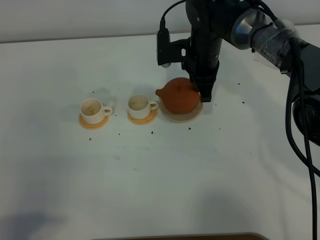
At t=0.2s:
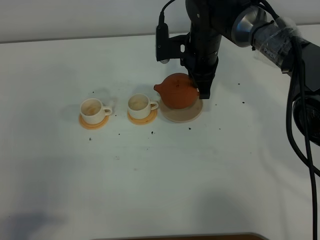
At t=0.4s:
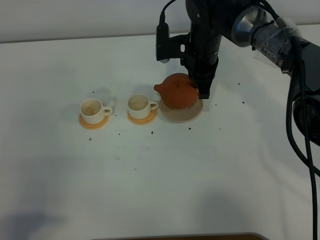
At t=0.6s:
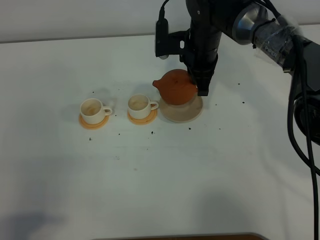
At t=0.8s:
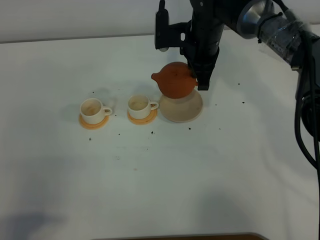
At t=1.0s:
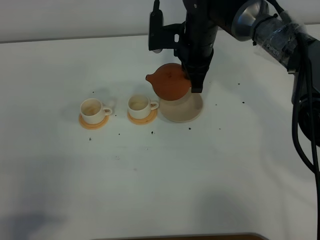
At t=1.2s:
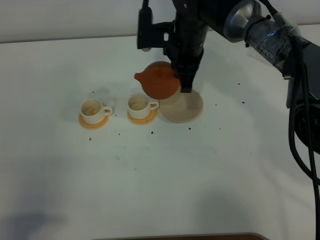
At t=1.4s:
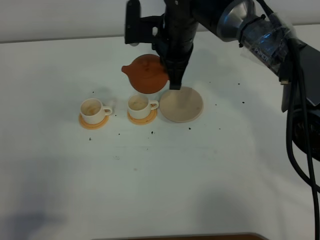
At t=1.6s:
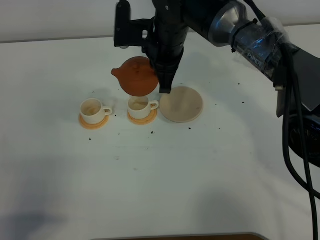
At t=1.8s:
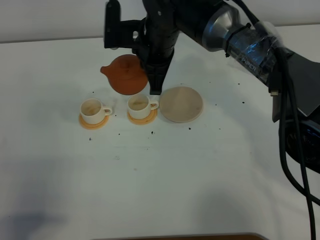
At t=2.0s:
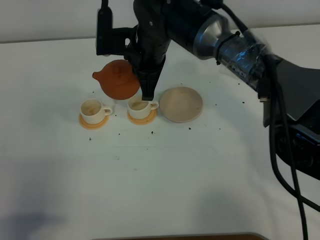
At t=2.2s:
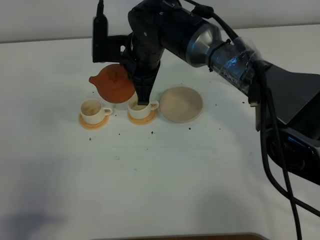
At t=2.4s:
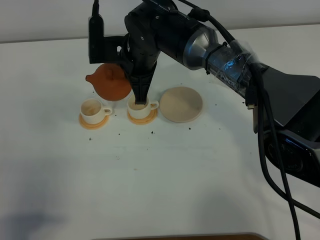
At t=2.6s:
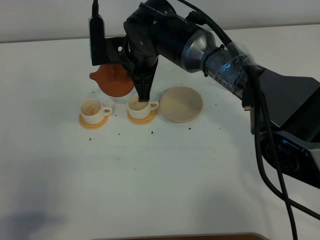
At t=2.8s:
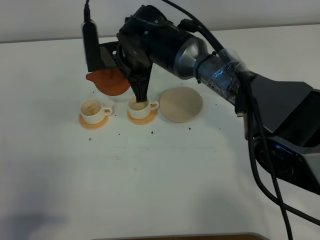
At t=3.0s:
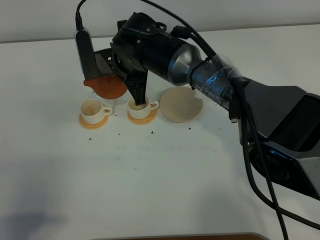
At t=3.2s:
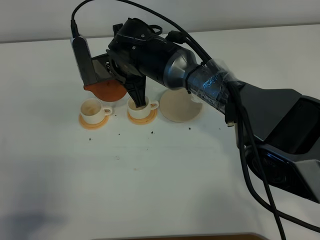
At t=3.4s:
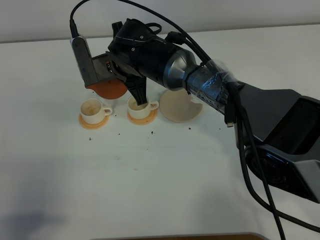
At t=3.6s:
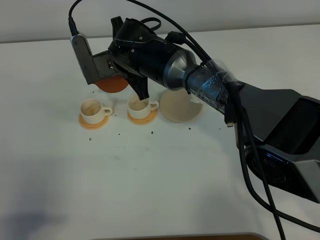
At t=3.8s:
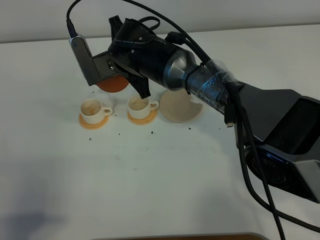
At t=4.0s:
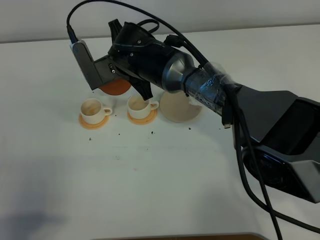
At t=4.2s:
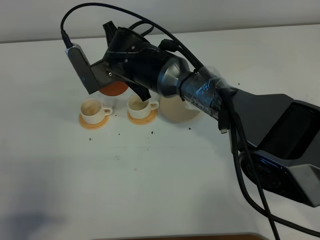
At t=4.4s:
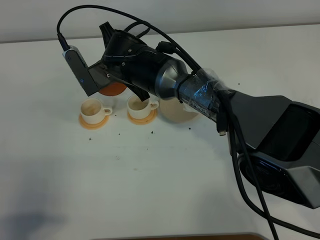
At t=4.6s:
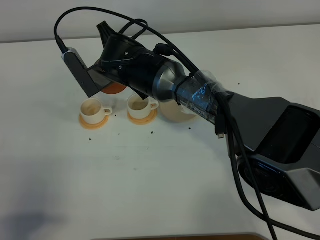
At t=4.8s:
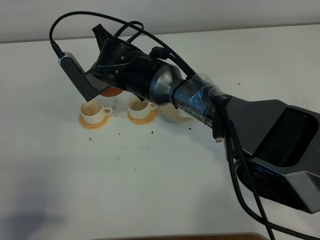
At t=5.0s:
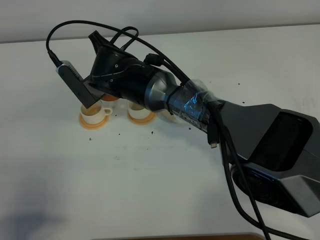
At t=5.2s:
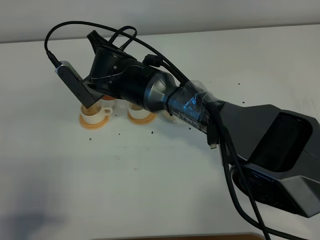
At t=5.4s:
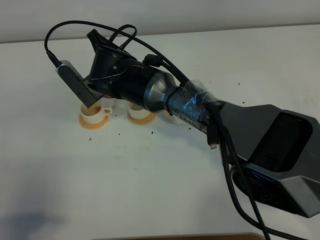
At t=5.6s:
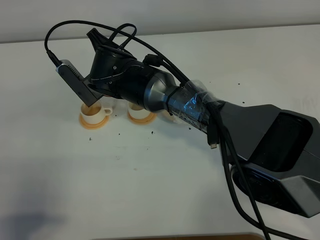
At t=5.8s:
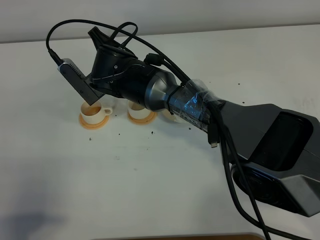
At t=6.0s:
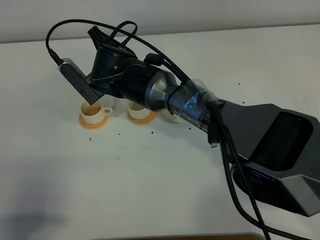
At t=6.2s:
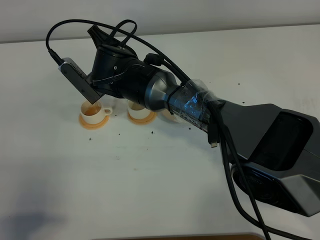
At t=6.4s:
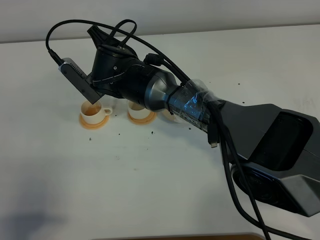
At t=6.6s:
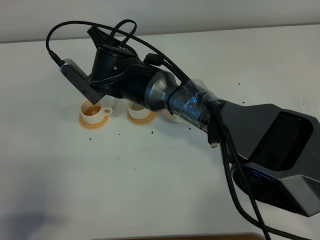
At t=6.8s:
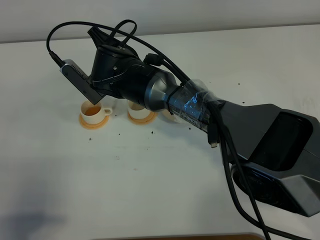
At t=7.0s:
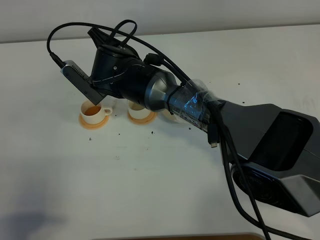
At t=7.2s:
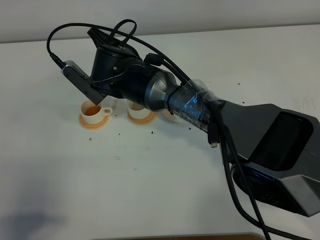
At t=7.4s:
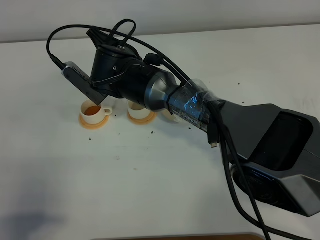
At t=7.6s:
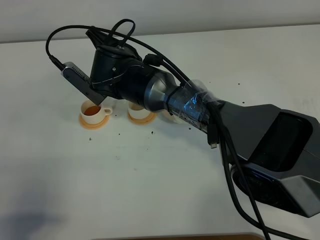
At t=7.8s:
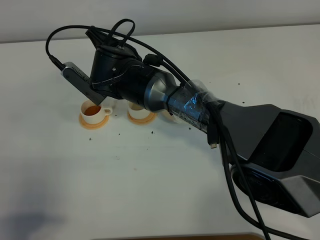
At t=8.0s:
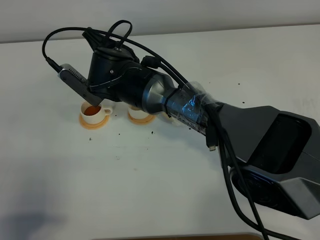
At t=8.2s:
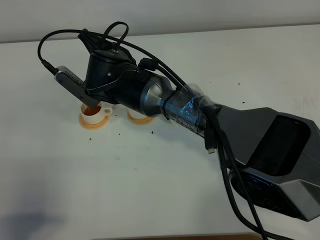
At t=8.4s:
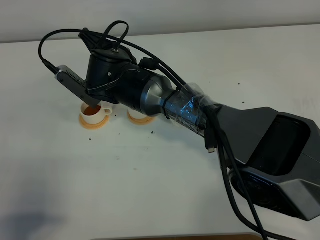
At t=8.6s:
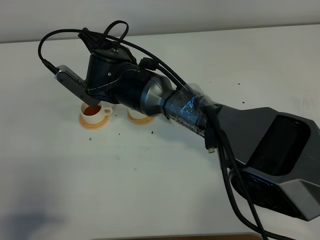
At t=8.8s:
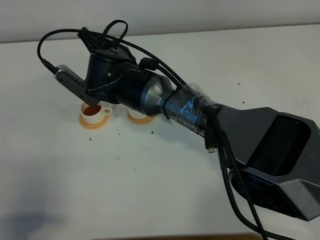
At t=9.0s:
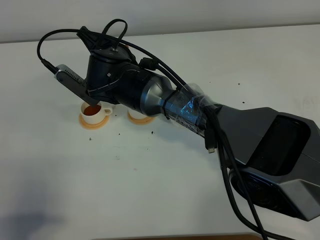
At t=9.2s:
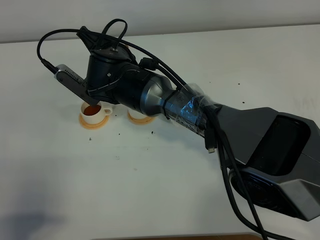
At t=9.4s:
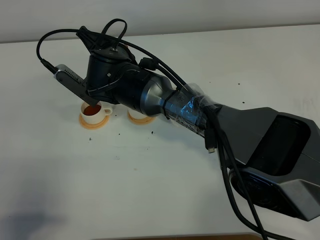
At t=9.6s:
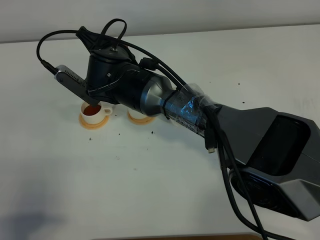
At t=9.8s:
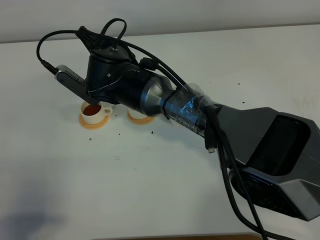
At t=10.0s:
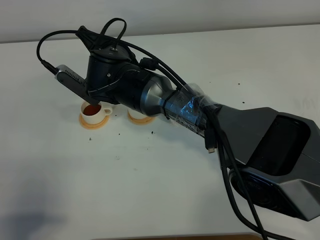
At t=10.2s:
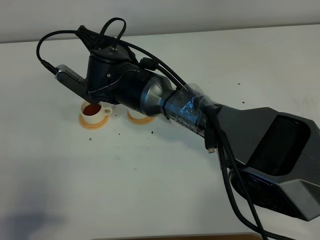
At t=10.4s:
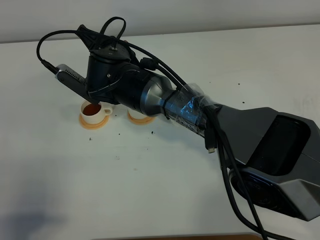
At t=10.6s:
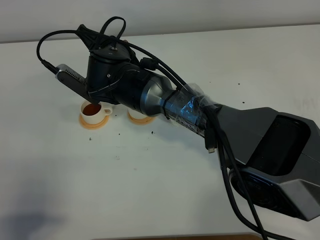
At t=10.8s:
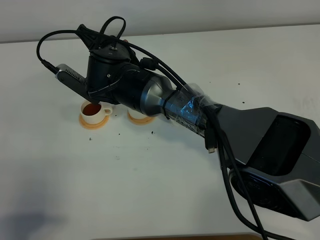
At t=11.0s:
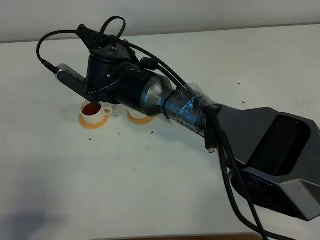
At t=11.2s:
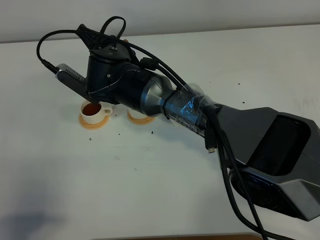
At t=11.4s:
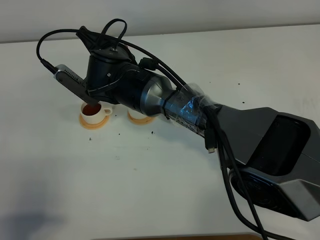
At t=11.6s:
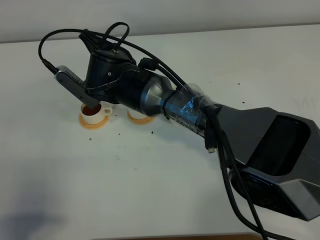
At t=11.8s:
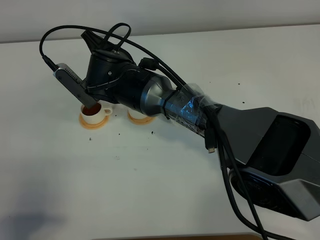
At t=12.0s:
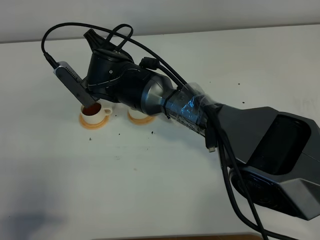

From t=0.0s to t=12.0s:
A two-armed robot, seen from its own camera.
Task of the whole recording: grasp the brown teapot and pour the tea into the two white teacups one by one, put the brown teapot back in its original place.
From t=0.0s to t=1.6s: The right gripper goes roughly 10 cm upward, to the left and backward.
From t=1.6s to t=3.0s: The right gripper goes roughly 5 cm to the left.
From t=4.4s to t=6.0s: The grippers stay close to where they were, moving slightly.
From t=6.0s to t=7.6s: The grippers make only small movements.
From t=7.6s to t=9.0s: Neither gripper changes place.
From t=9.0s to t=10.4s: The two grippers keep their place.
From t=10.4s to t=12.0s: The grippers move only a little.

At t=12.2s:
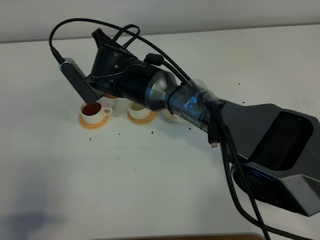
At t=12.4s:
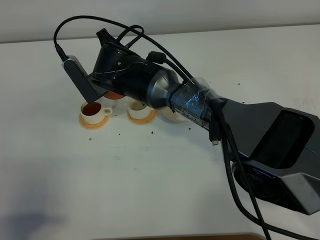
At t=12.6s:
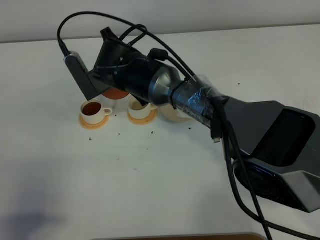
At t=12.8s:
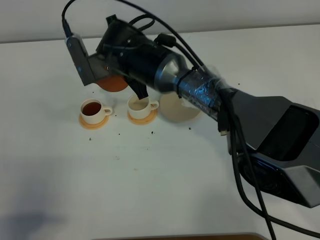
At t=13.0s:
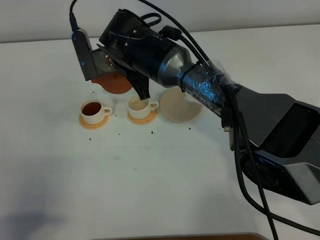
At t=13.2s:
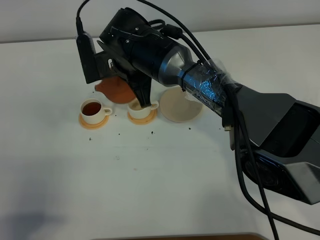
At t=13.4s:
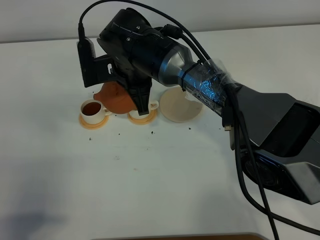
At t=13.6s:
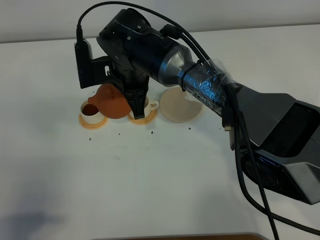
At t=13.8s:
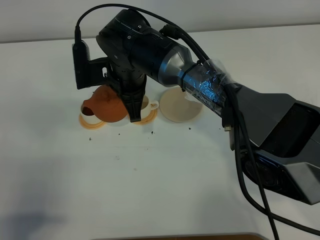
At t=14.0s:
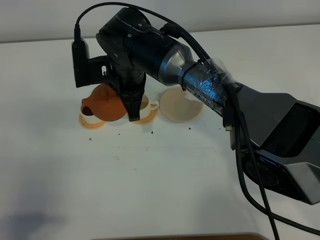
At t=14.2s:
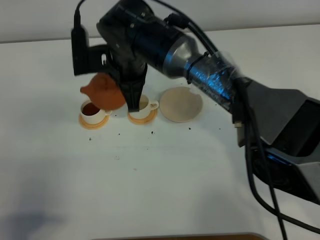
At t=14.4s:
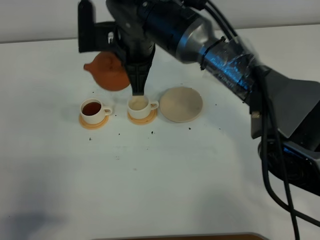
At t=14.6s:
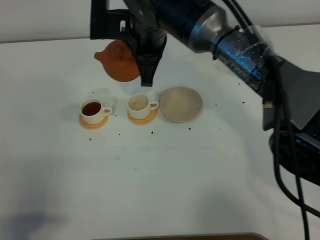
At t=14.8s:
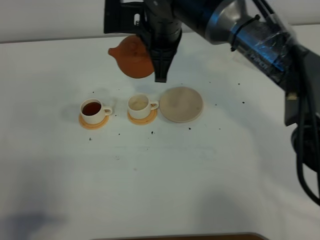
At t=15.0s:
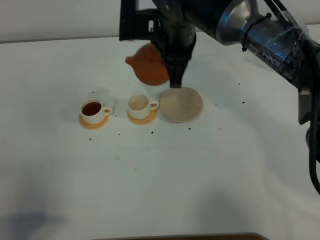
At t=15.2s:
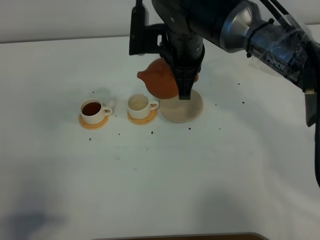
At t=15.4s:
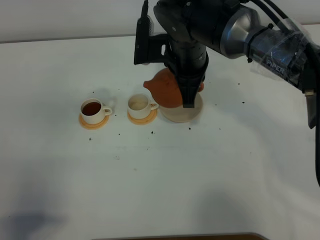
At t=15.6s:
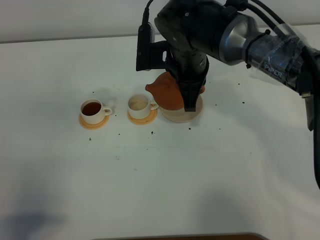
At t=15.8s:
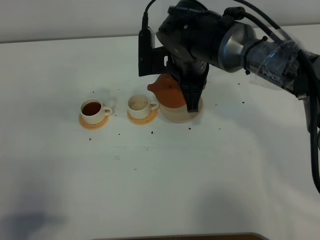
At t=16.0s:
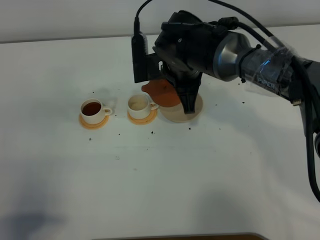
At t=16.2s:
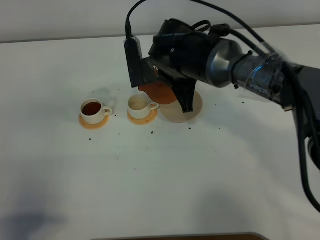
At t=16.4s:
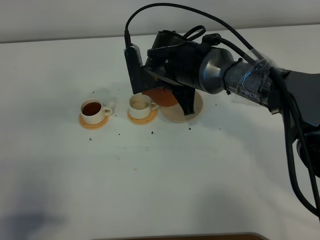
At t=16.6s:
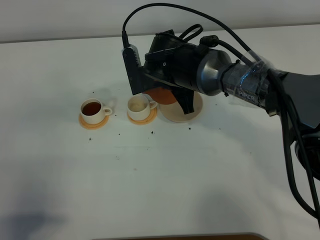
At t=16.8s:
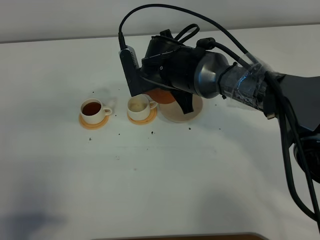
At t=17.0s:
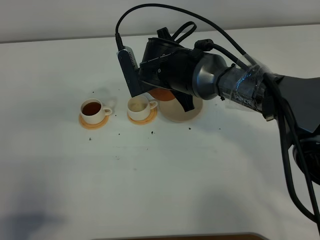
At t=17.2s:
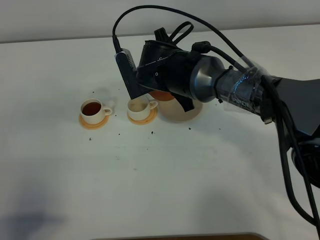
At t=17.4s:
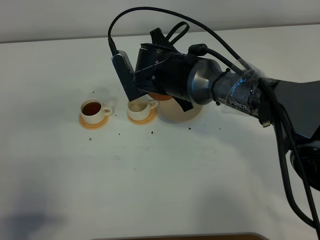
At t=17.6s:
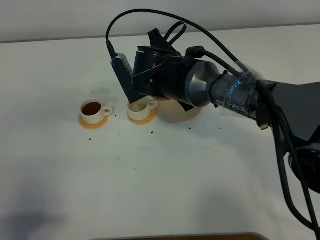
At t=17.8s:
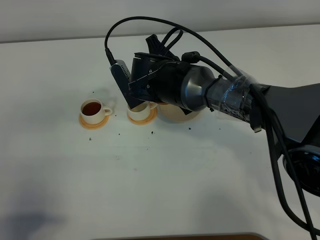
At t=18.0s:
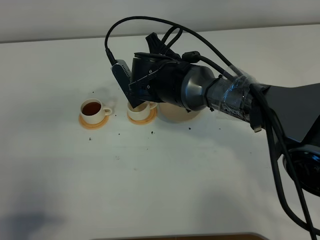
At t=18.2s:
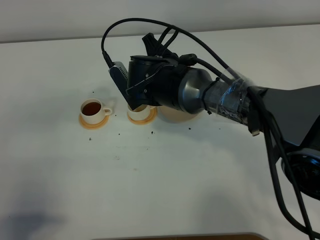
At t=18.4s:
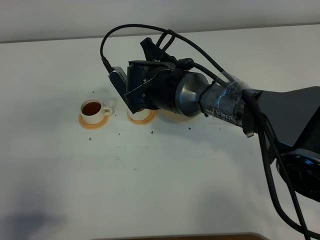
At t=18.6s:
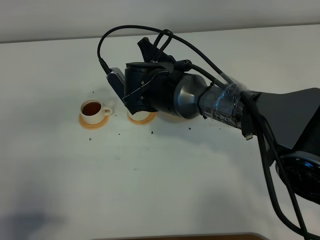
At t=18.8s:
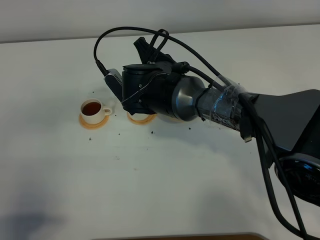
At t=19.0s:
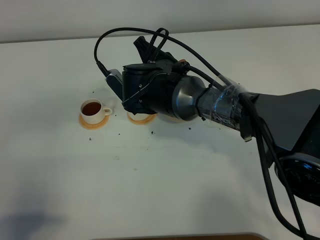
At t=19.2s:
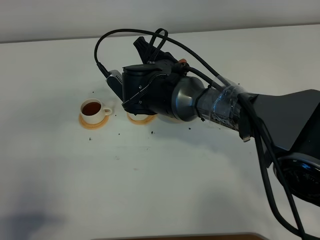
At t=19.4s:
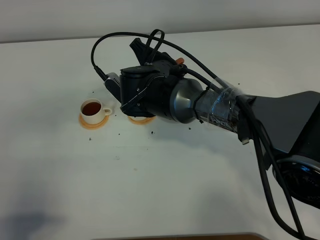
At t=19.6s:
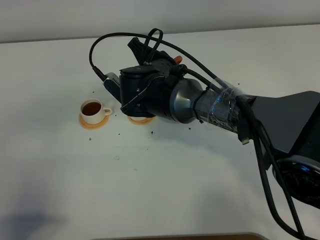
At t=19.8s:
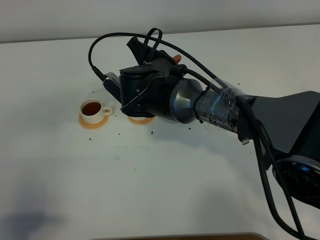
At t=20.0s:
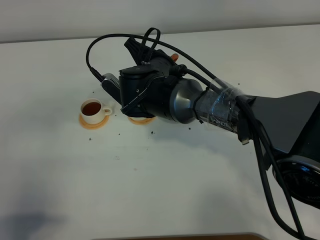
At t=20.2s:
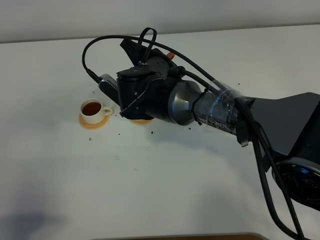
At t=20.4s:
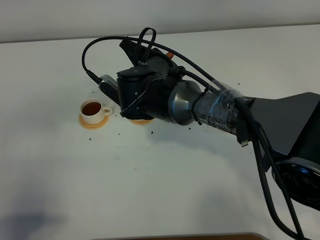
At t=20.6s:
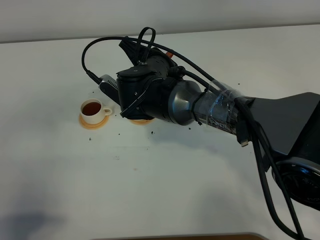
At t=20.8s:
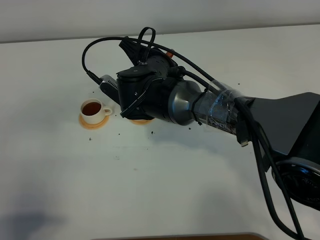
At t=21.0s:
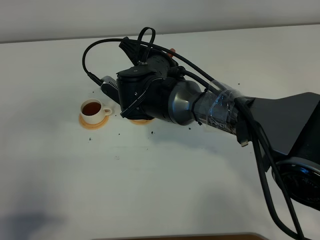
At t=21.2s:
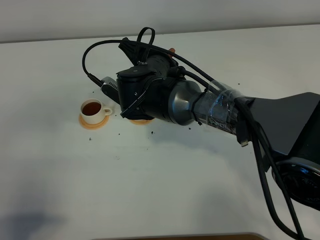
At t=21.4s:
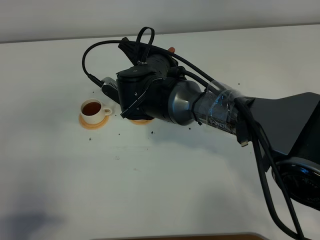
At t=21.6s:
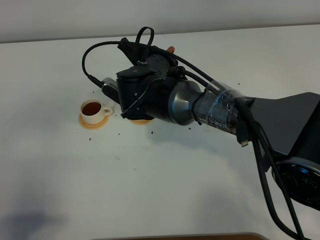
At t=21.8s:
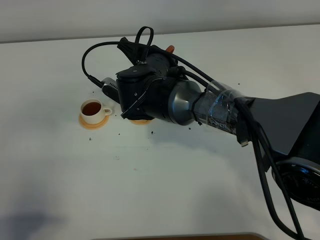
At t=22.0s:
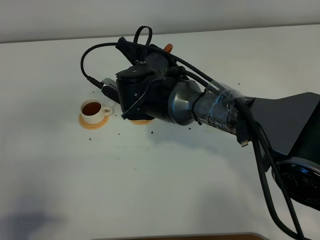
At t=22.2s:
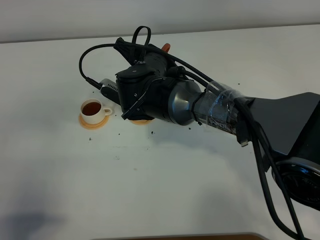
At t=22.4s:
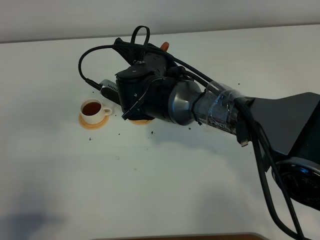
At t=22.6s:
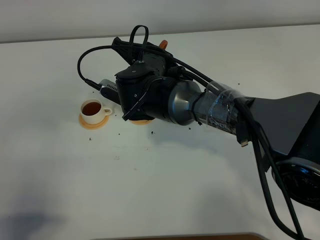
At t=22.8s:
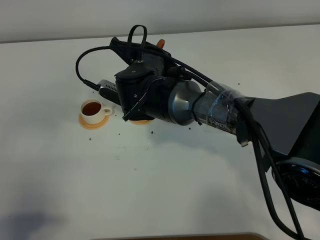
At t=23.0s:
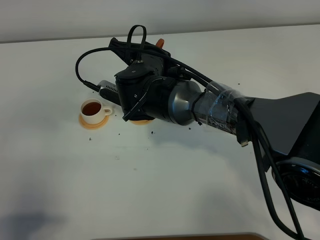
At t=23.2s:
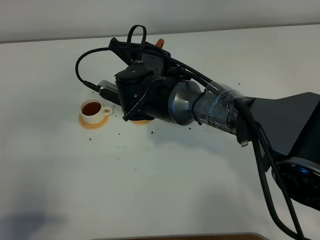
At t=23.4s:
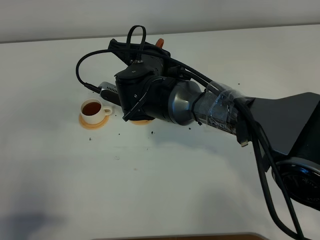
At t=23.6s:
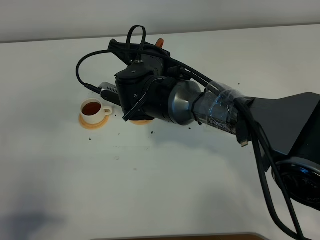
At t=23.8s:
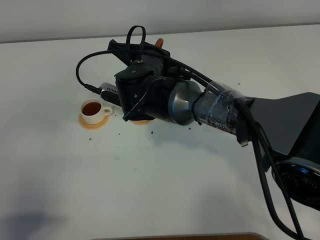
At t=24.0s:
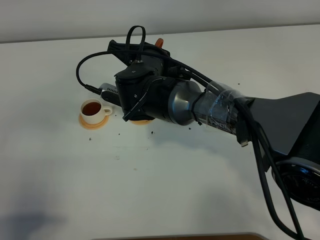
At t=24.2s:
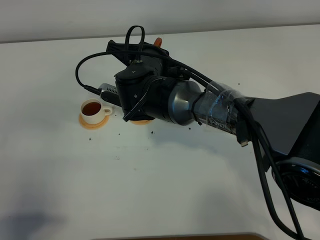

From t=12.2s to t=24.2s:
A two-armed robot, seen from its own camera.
Task of the whole recording: grasp the brown teapot and pour the tea into the two white teacups one by one, put the brown teapot back in its original place.
From t=13.8s to t=15.2s: The right gripper is displaced to the right by some 10 cm.
From t=15.2s to t=16.6s: The right gripper moves downward, approximately 5 cm.
From t=18.2s to t=19.8s: The grippers make only small movements.
From t=19.8s to t=22.6s: The grippers make only small movements.
From t=22.6s to t=24.2s: The grippers stay close to where they were, moving slightly.
